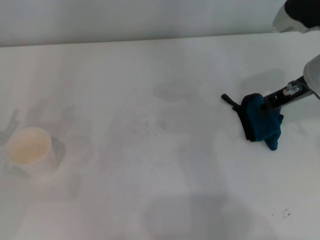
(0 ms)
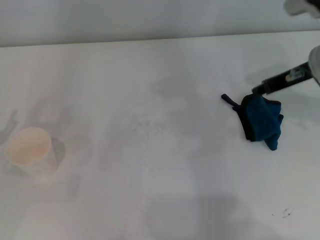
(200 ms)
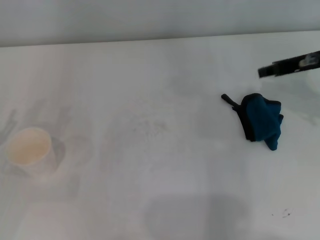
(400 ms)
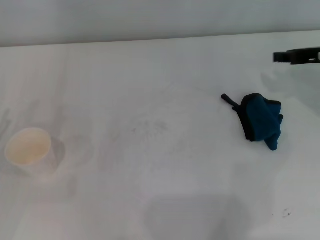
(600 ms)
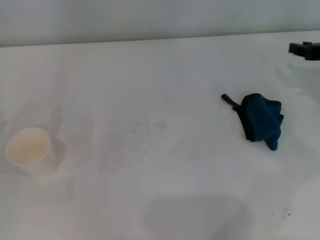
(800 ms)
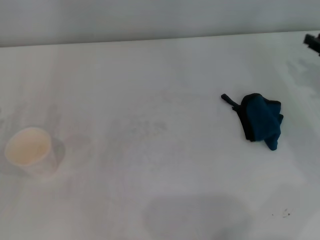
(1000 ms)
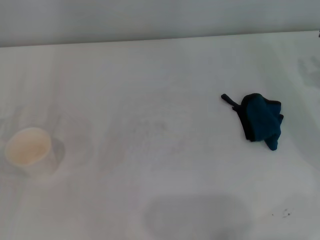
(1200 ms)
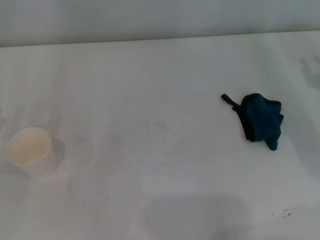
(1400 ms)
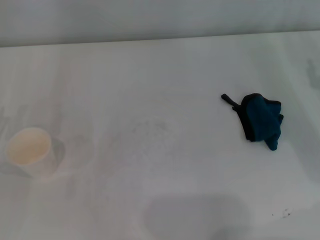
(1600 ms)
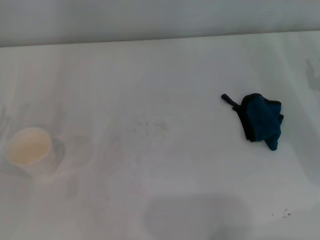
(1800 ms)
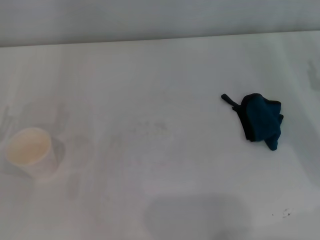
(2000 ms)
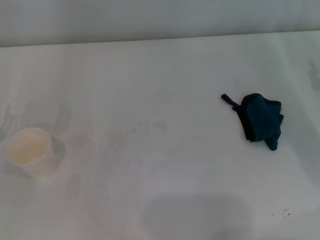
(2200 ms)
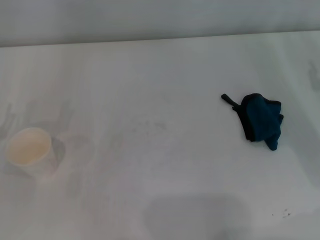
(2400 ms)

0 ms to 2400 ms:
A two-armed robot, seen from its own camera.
0 ms to 1200 ms: The right gripper travels to the right and downward by about 15 cm.

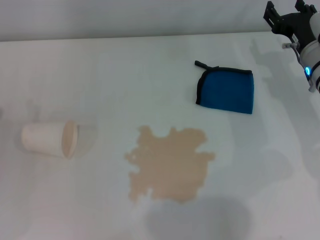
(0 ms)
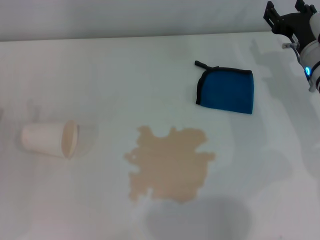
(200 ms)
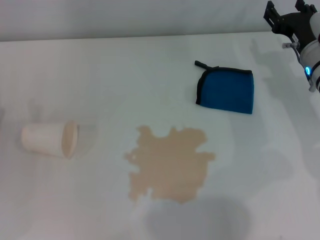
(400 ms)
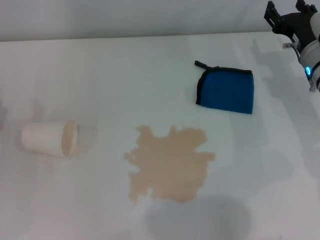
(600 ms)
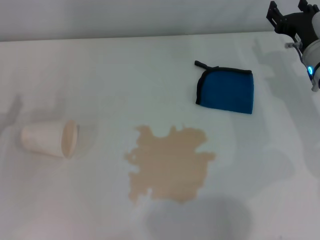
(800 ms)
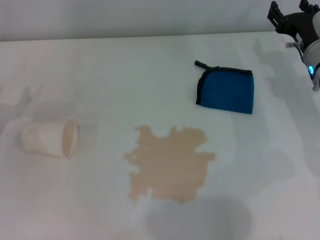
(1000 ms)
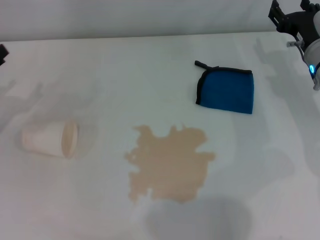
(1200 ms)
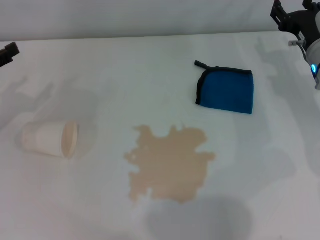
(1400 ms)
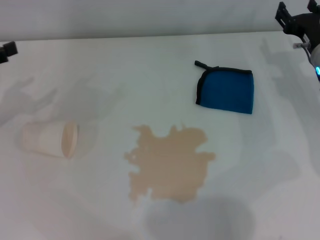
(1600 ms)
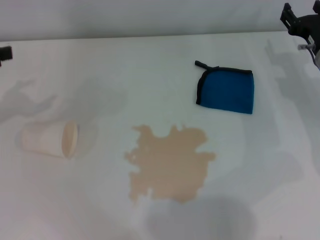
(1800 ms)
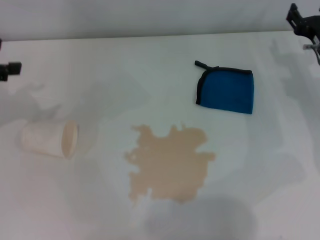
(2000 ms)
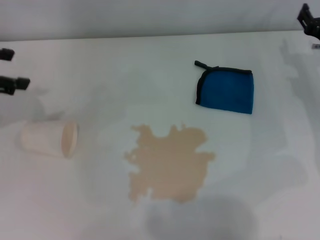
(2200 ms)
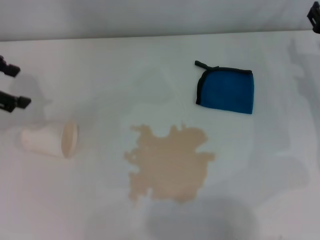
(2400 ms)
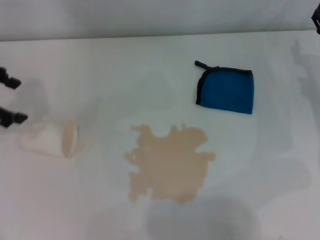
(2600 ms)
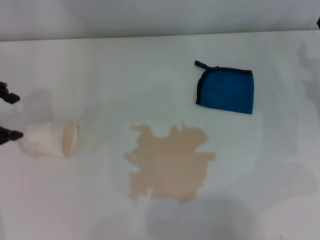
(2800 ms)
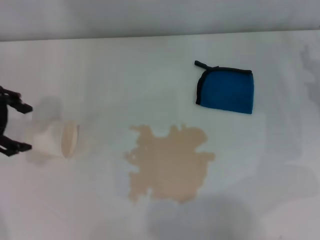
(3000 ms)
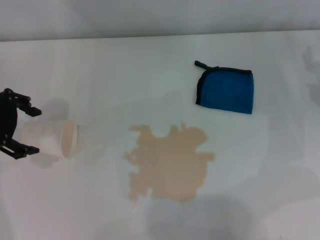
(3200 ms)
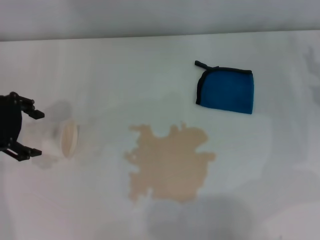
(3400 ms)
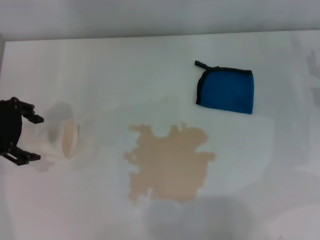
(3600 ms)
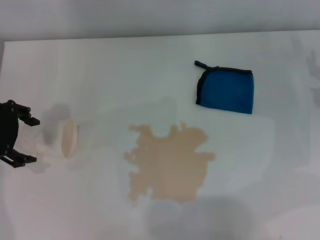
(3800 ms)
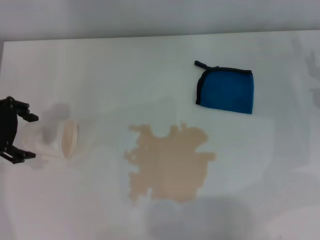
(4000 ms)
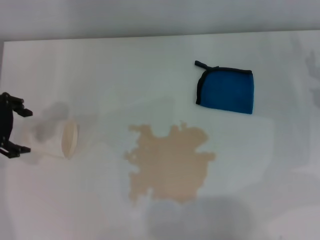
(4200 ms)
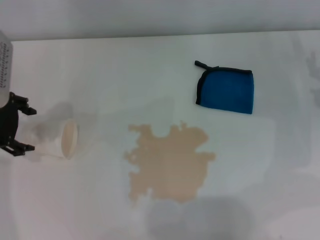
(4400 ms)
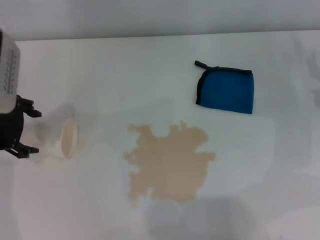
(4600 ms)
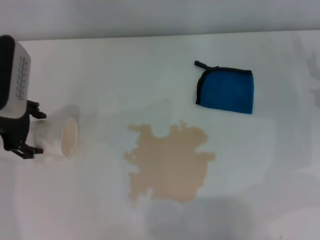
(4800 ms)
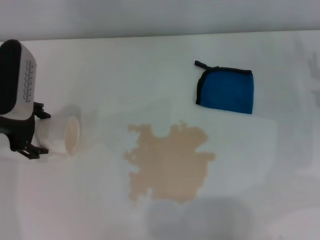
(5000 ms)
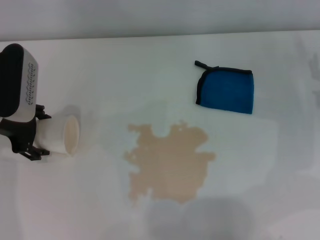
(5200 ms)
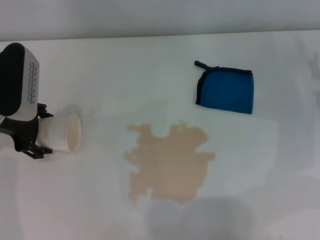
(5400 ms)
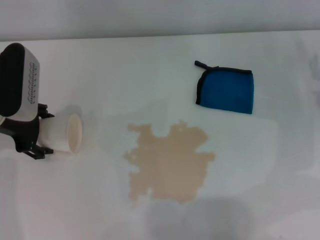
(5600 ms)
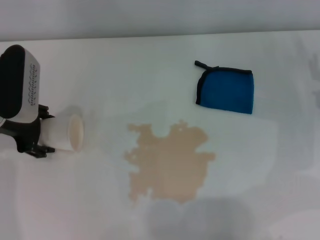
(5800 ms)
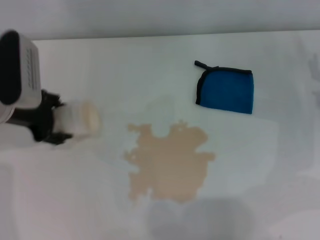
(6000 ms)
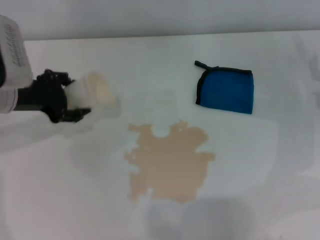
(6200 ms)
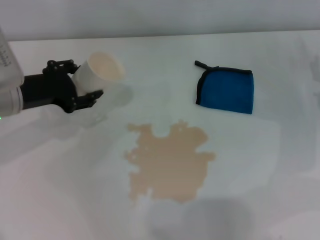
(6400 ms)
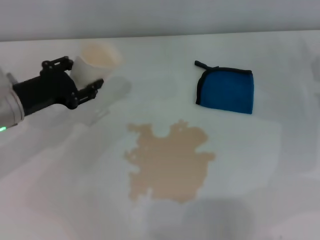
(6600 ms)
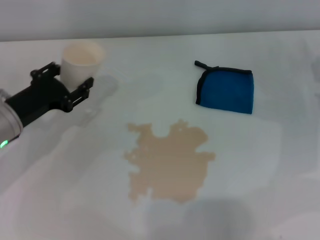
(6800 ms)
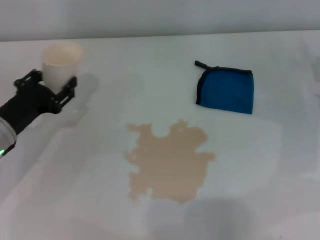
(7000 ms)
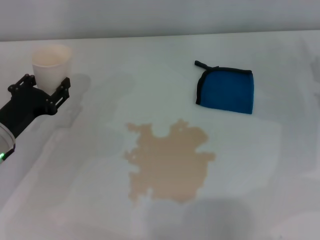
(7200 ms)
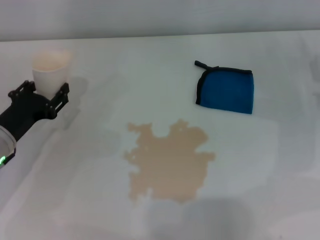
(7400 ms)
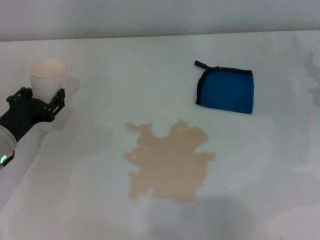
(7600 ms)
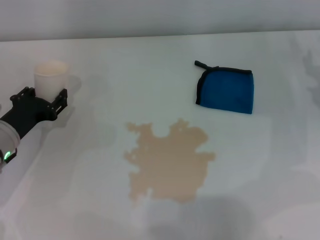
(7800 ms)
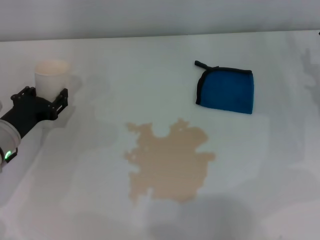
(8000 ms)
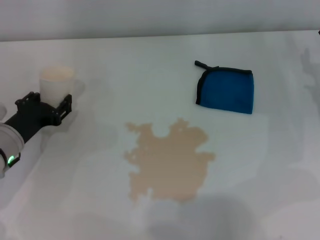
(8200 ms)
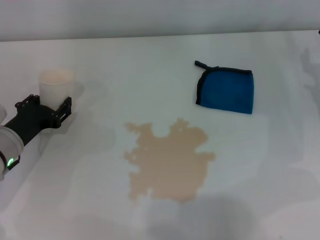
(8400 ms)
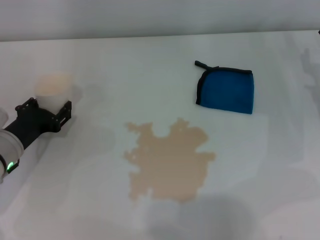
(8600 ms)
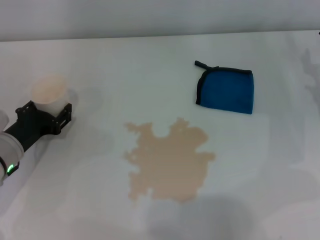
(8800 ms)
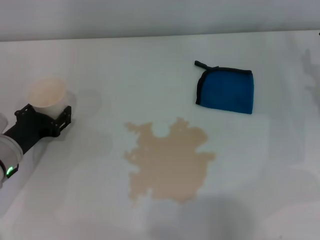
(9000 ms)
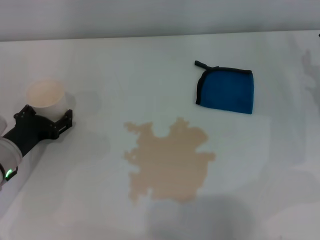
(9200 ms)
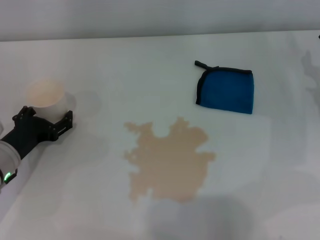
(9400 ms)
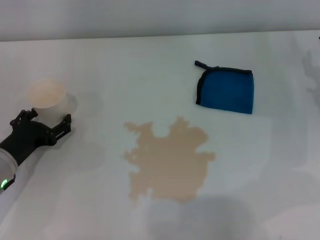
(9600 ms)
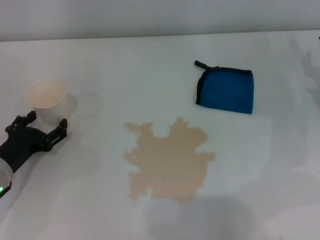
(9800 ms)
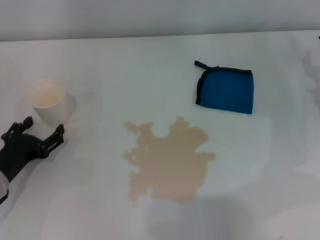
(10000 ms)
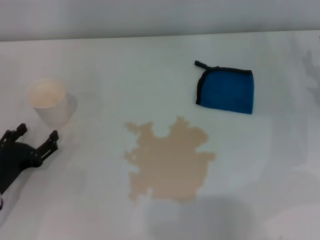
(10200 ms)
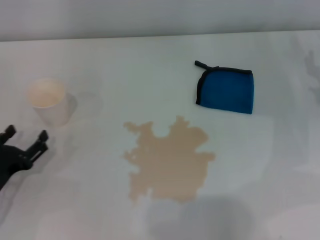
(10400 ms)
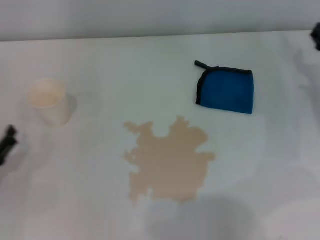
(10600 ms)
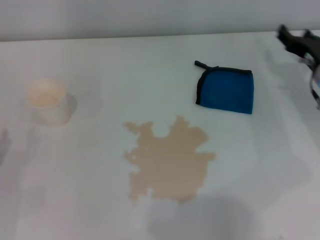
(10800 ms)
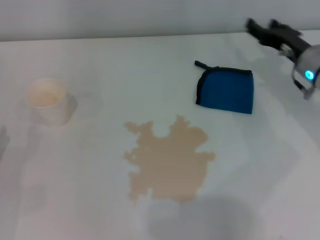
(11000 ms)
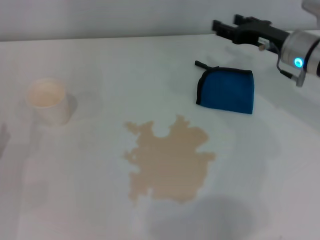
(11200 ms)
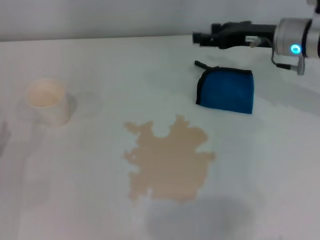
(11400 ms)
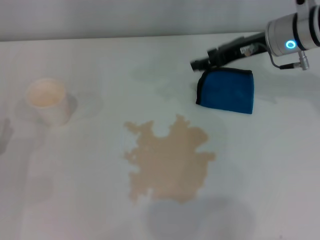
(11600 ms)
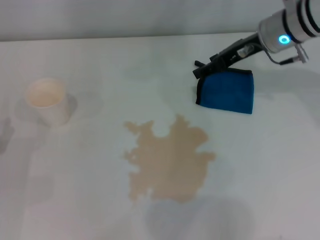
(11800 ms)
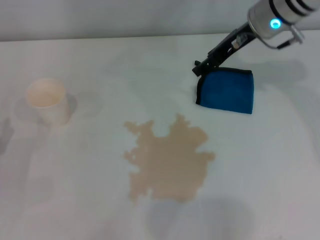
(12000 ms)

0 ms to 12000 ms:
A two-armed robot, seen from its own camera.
Step, 0 ms to 4800 ms: Grasp the paper cup with the left gripper.
Step, 5000 ms to 8800 ms: Stand the paper cup upright with the left gripper.
1600 ms to 3000 ms: The left gripper is displaced to the right and upward by about 10 cm, while the right gripper shifts by approximately 5 cm.
3000 ms to 4400 ms: There are only small adjustments of the grippers.
4400 ms to 6000 ms: There are only small adjustments of the grippers.
6000 ms to 7600 ms: The left gripper heads downward and backward, covering some 10 cm, and closes up.
7600 ms to 9000 ms: The grippers move only a little.
9000 ms to 10400 ms: The left gripper goes about 10 cm backward, and opens its fingers.
10400 ms to 12000 ms: The right gripper is displaced to the left, upward and forward by approximately 20 cm.

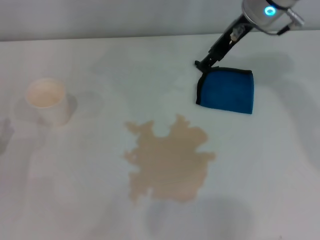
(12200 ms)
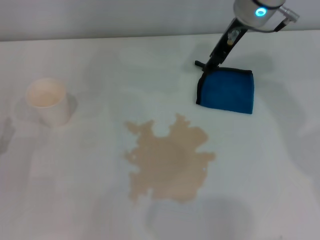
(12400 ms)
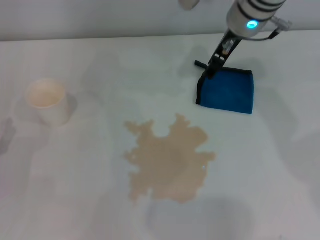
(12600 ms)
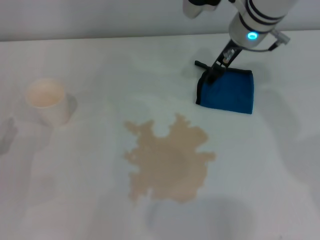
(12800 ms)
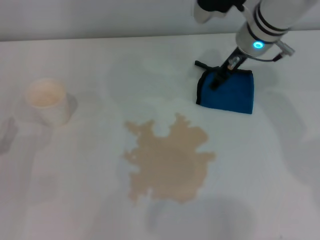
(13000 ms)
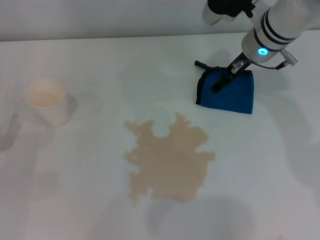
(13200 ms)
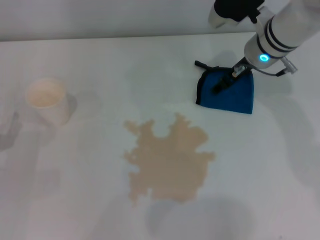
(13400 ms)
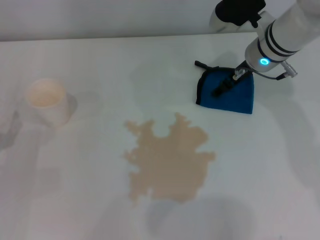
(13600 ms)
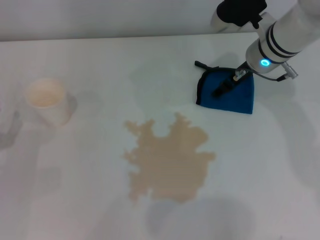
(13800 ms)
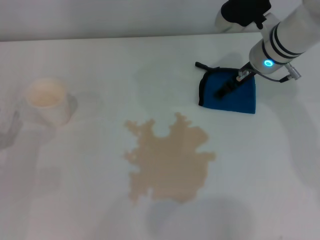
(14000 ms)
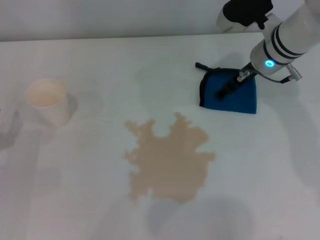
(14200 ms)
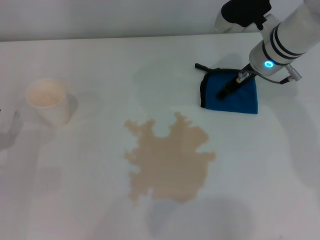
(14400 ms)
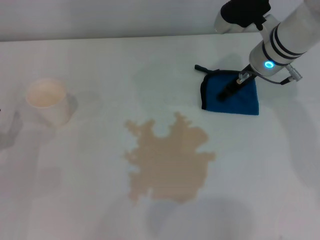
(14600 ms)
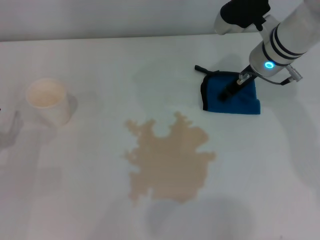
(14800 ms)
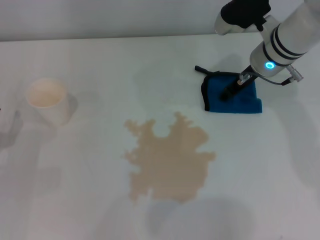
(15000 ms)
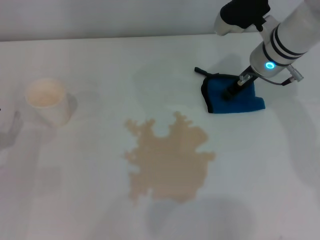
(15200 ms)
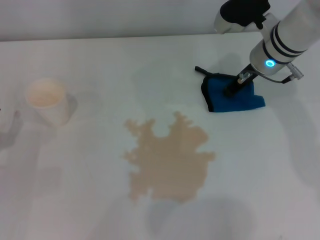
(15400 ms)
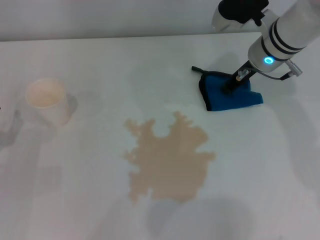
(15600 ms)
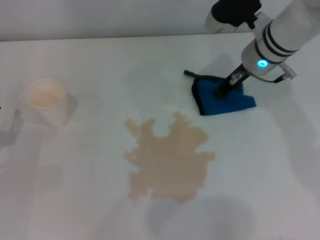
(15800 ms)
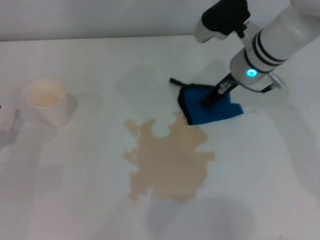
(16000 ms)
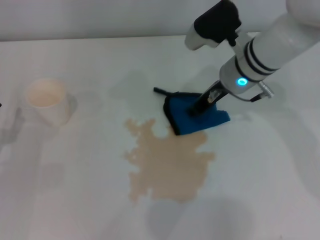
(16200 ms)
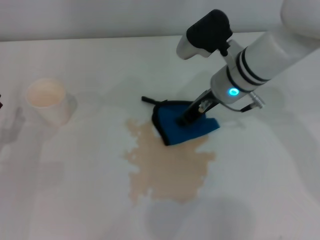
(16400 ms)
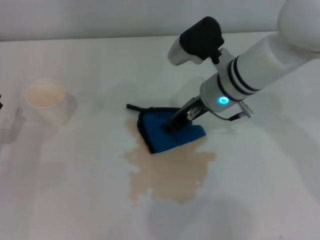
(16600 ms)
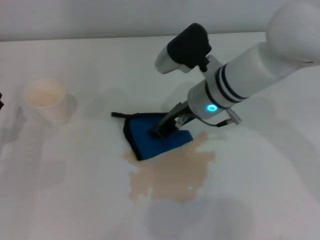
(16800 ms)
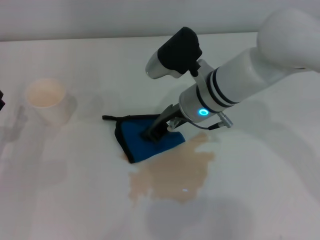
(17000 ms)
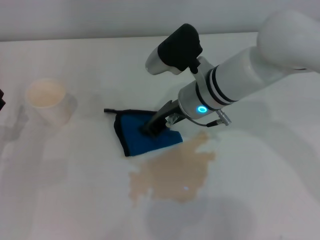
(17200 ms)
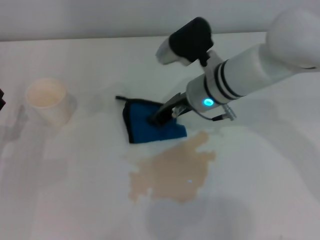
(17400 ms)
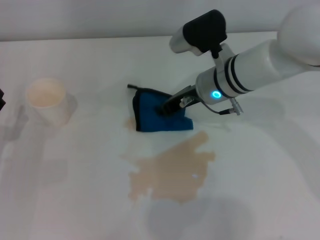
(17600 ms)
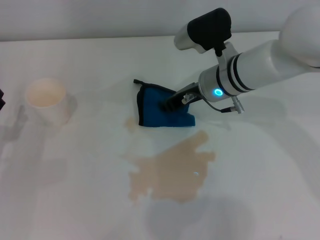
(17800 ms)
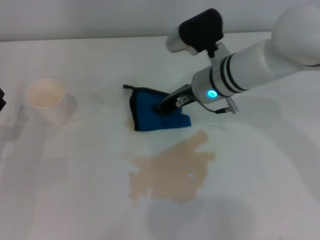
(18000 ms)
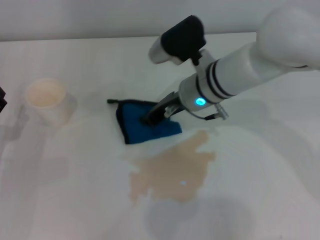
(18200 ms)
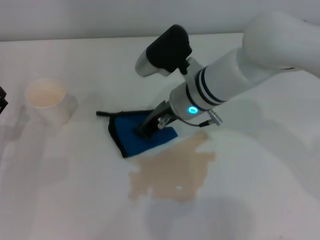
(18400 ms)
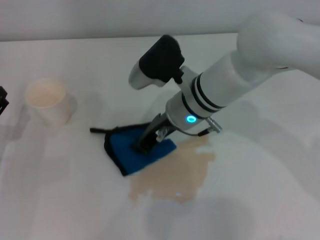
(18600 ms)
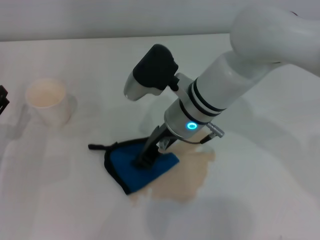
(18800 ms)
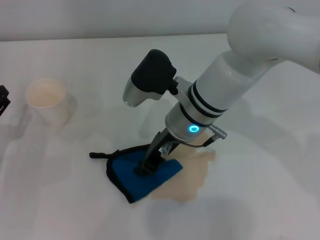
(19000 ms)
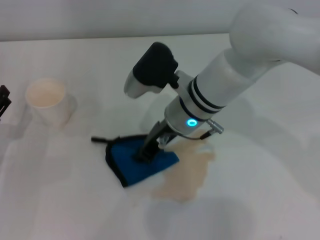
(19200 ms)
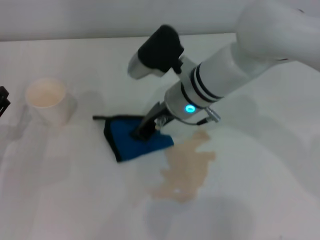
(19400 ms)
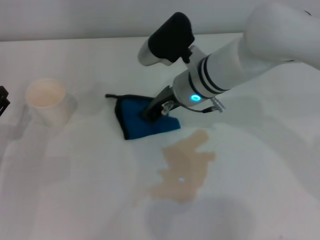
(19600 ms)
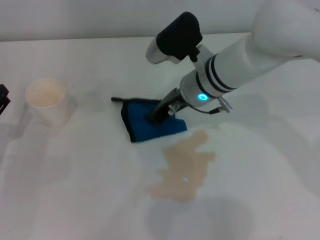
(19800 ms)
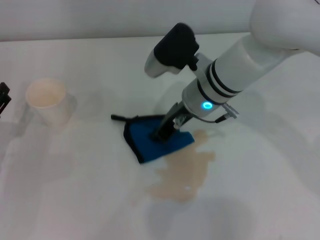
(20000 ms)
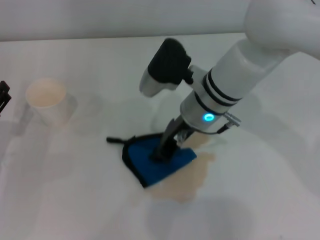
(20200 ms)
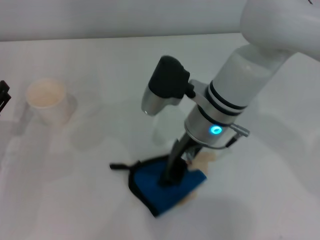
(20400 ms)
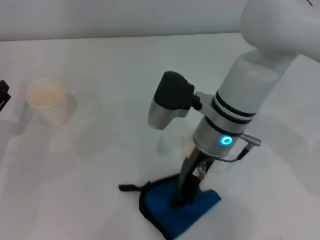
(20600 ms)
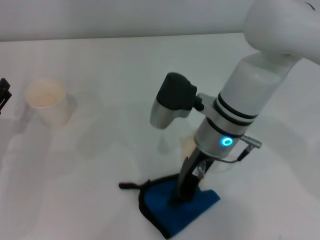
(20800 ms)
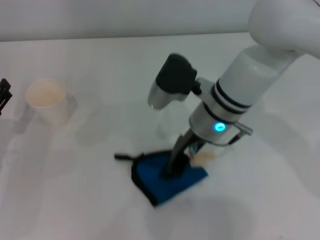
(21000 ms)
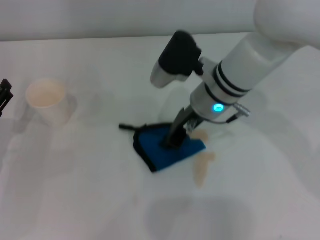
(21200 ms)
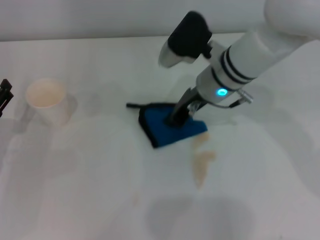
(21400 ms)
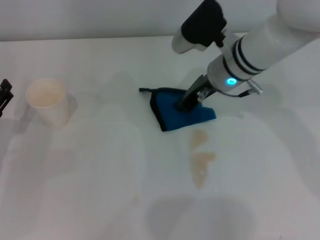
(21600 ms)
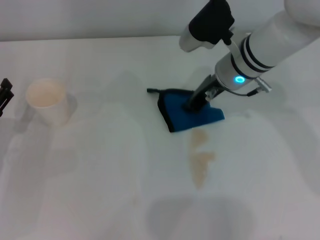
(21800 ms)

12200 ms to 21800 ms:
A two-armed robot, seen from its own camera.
Step, 12200 ms to 15400 ms: Grasp the rag with the right gripper.
12200 ms to 13800 ms: The right gripper is displaced downward by about 10 cm.
13800 ms to 15400 ms: The right gripper closes its fingers.
15400 ms to 17000 ms: The right gripper shifts some 15 cm to the left and backward.
17000 ms to 20200 ms: The grippers stay close to where they were, moving slightly.
20200 ms to 21800 ms: The right gripper goes approximately 5 cm to the right.
